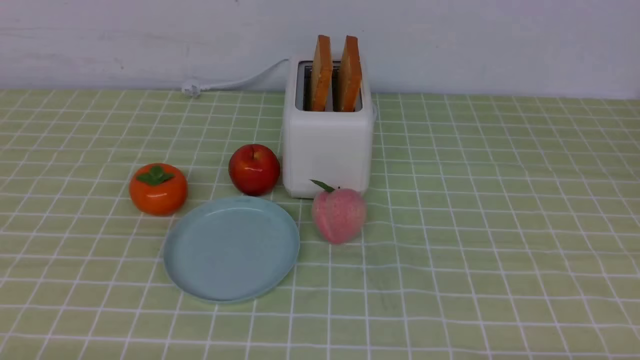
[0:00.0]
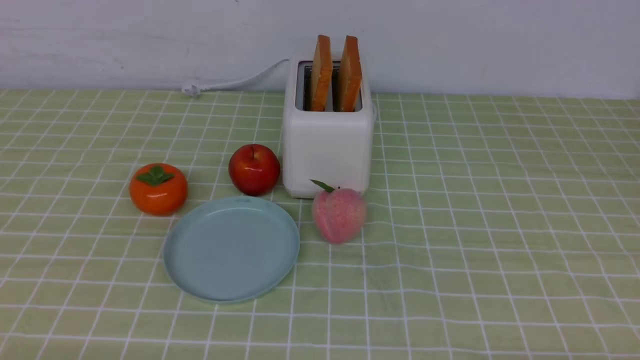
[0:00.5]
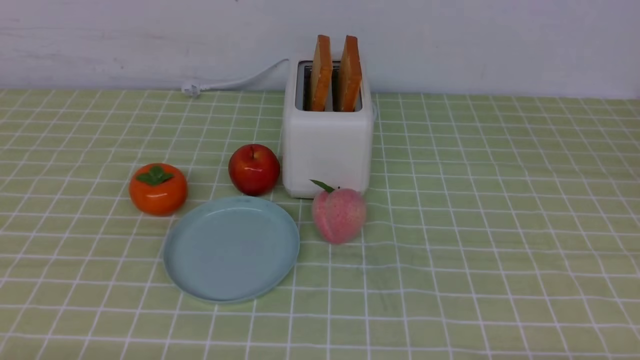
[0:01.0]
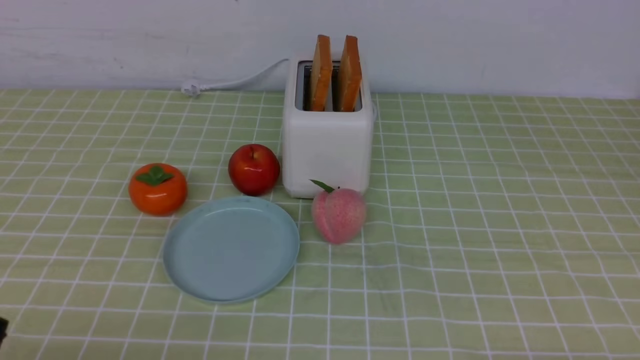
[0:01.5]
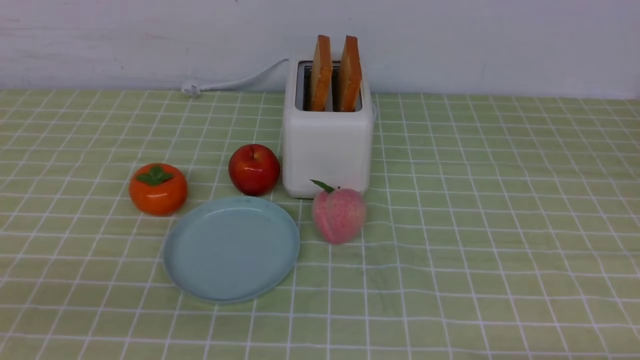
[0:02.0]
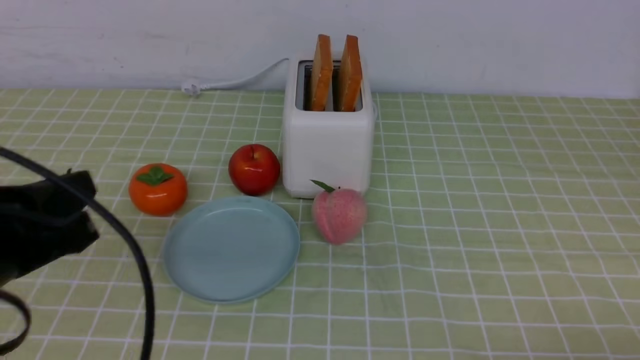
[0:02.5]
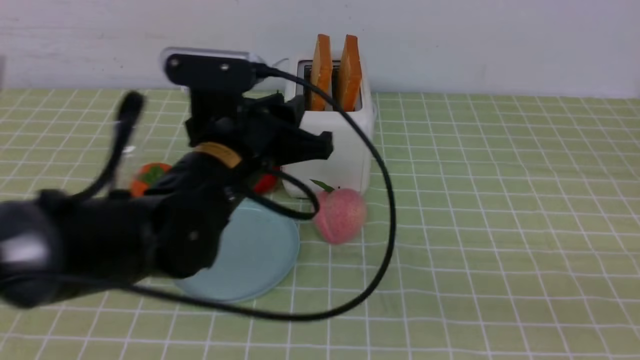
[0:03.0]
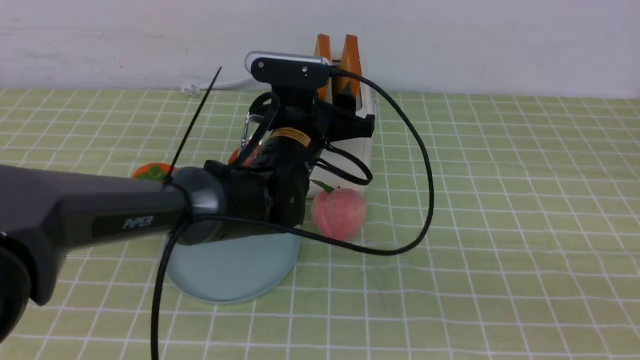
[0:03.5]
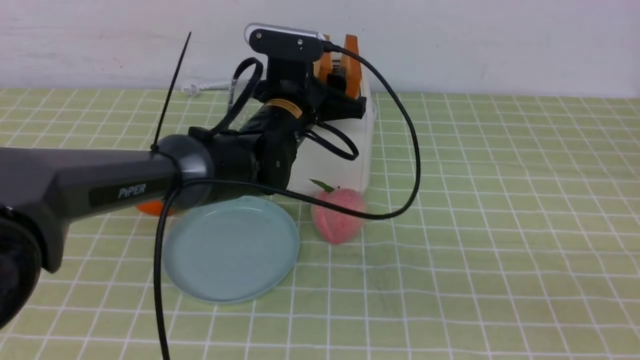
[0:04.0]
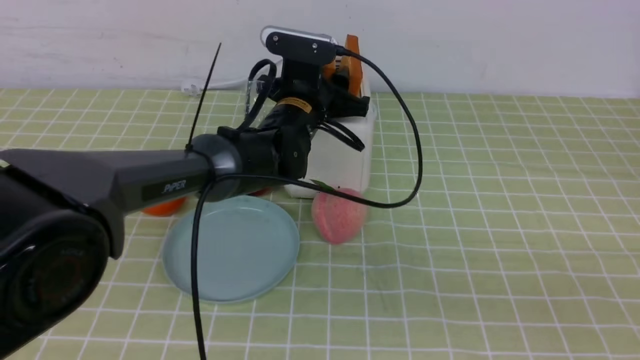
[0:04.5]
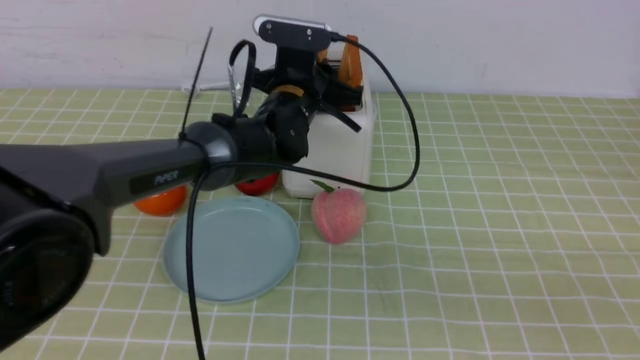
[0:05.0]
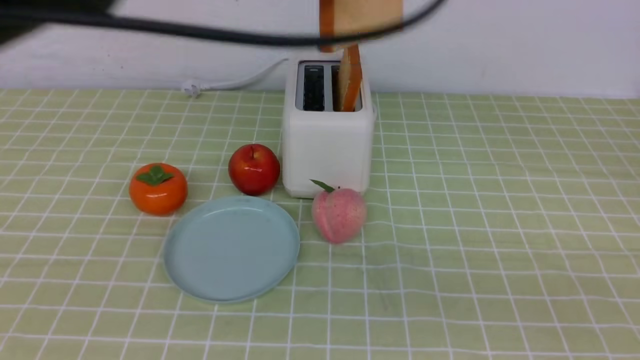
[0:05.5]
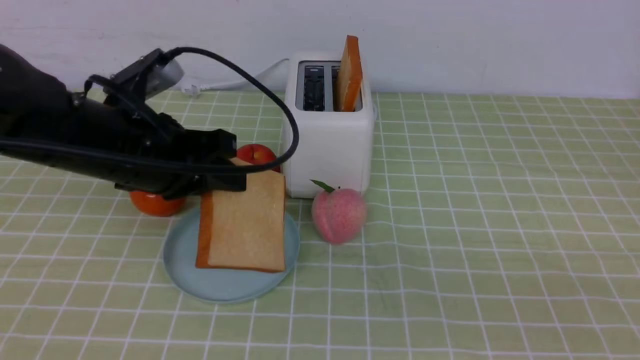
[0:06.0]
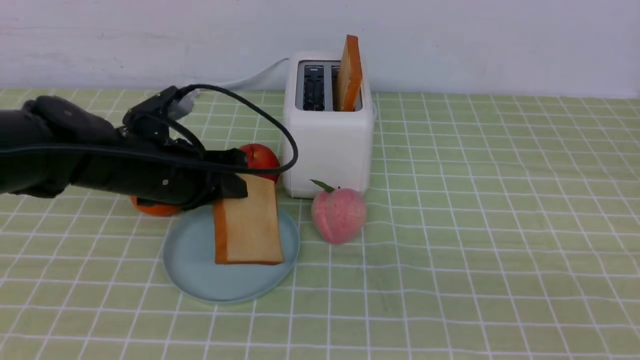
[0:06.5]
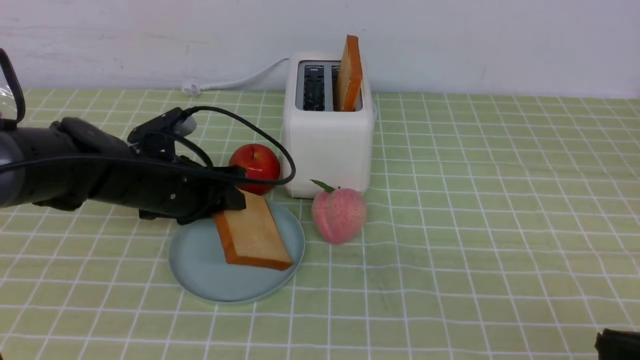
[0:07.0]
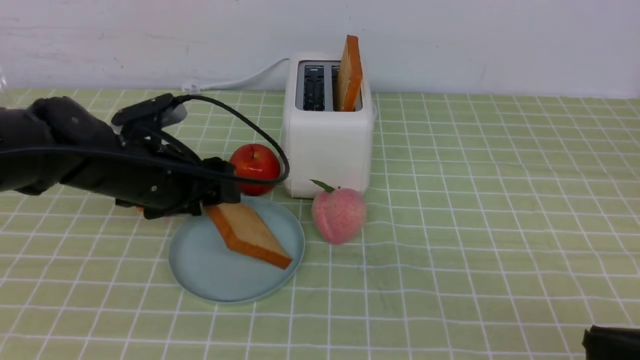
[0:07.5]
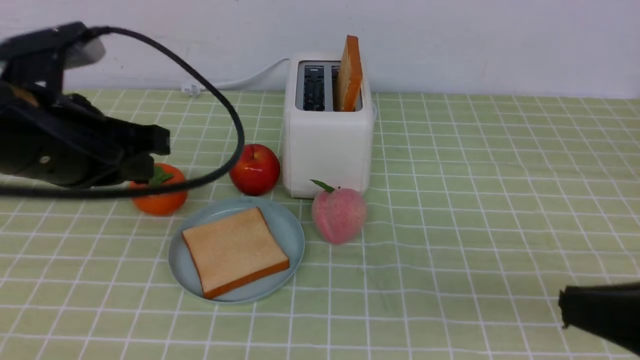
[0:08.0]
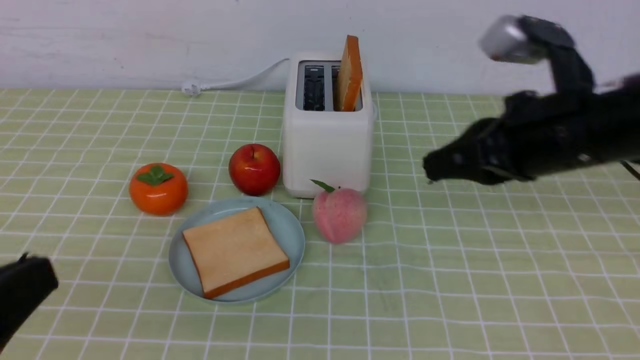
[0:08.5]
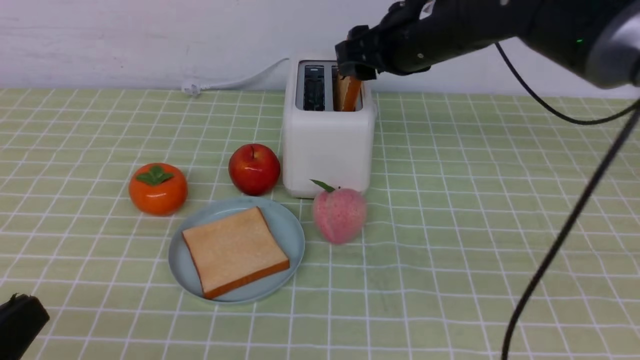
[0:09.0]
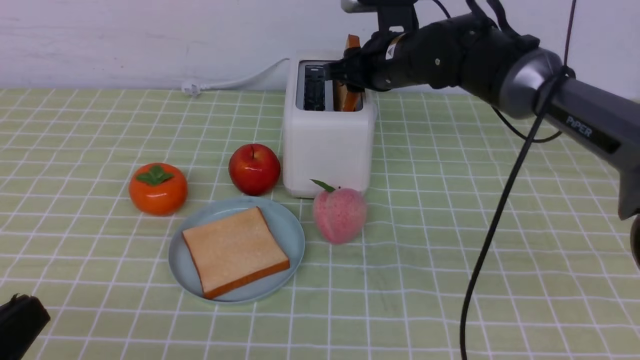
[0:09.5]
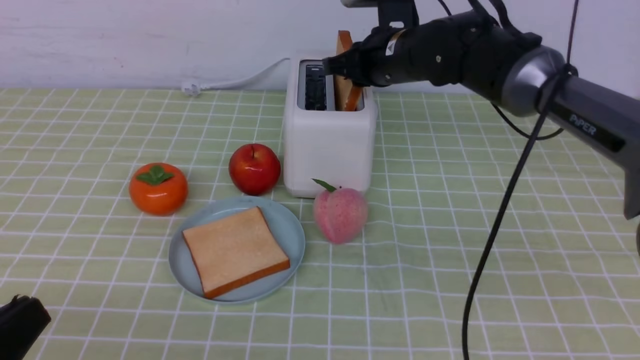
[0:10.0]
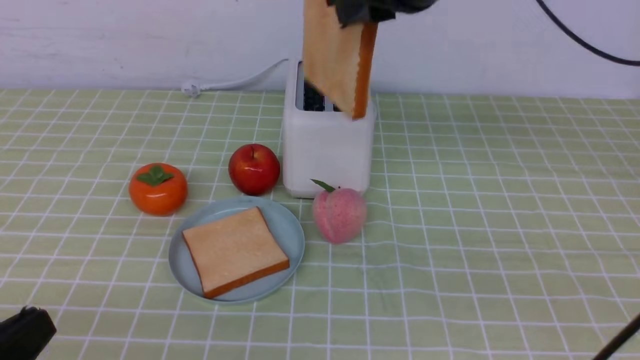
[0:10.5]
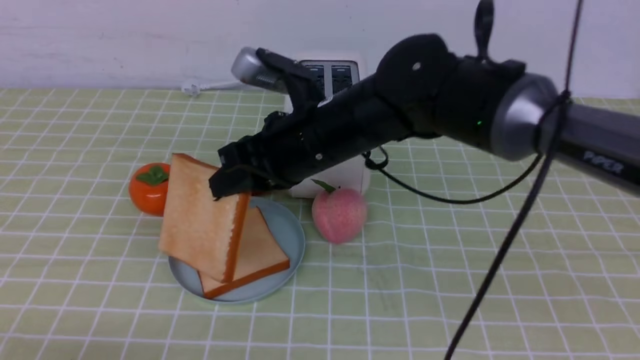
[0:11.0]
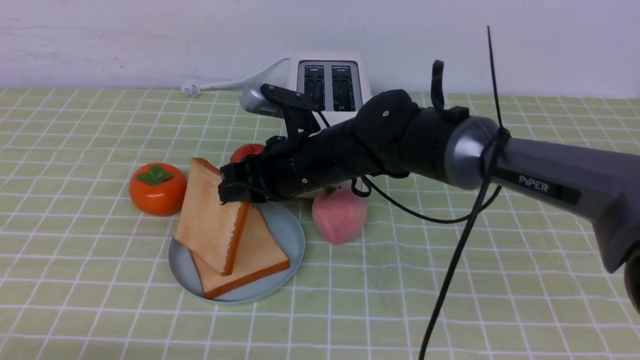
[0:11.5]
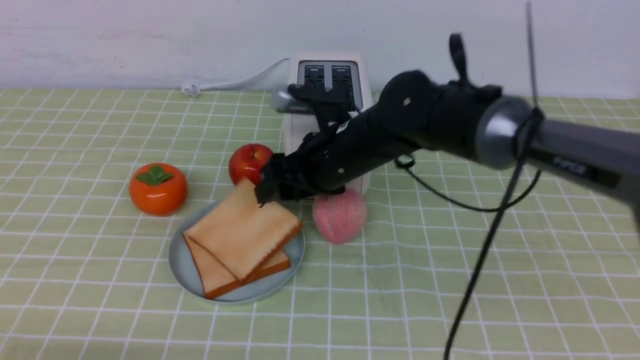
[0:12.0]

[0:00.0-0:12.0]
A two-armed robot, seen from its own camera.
Task of the whole recording: take toasted bread from bread machine on green coffee tablecloth place on plate.
Step, 0:00.0 to 0:05.0: use the left arm to take out a slice of bread.
Step, 0:05.5 to 0:07.5: use the left arm to put a slice of bread into the empty plate.
Step, 0:08.0 to 0:10.0: use the right arm to take out a slice of bread.
0:02.0 to 0:04.0: The right gripper shifts approximately 15 cm upward, and closes. The left gripper goes roughly 40 cm forward and to the right, and opens its fingers.
0:04.0 to 0:06.0: The left gripper goes some 20 cm to the left, backward and upward, and closes its fingers.
0:06.0 to 0:08.0: The left gripper travels downward and back again, approximately 15 cm each way, and opens, then closes once more.
0:08.0 to 0:10.0: The left gripper is displaced backward by about 20 cm, and closes up. The right gripper travels forward and to the left by some 40 cm, and opens, then closes once more.
0:10.0 to 0:12.0: The right gripper heads backward, to the left and downward, covering some 15 cm, and opens its fingers; the left gripper moves downward, about 10 cm.

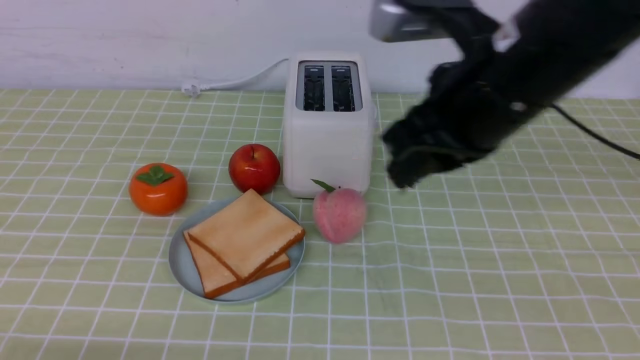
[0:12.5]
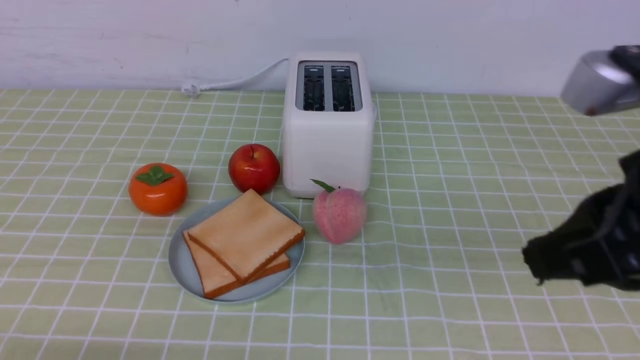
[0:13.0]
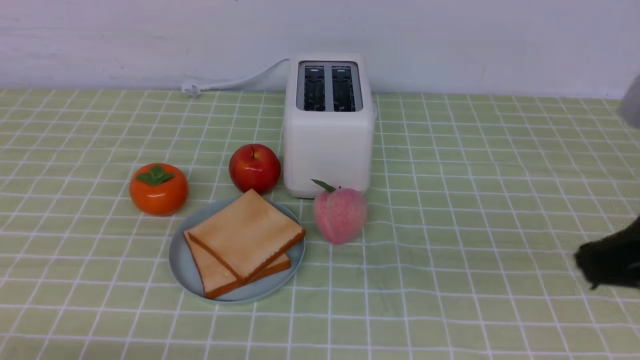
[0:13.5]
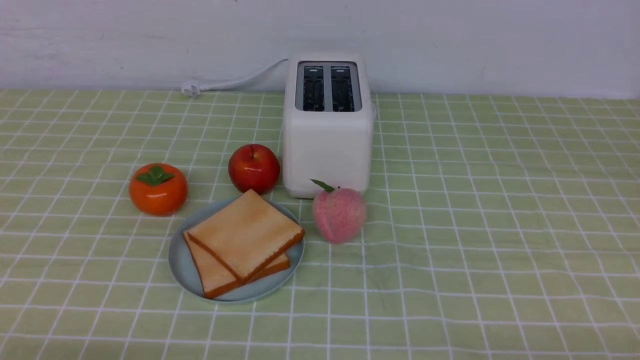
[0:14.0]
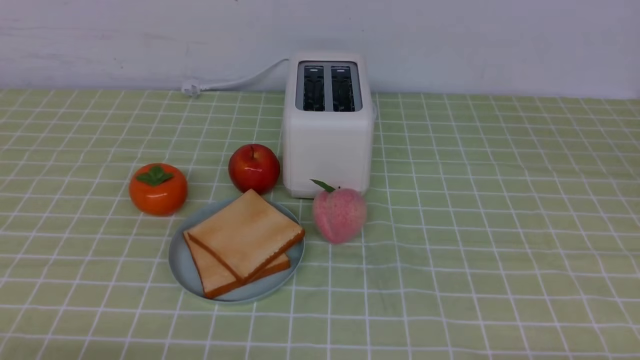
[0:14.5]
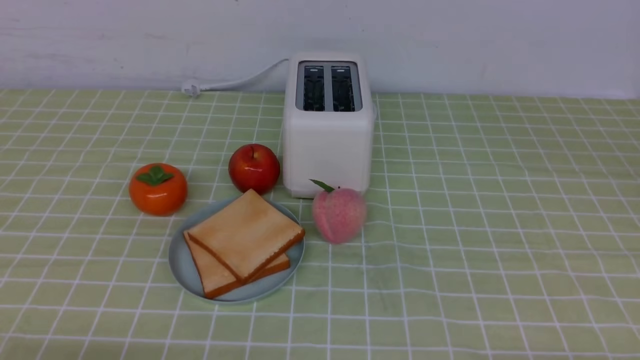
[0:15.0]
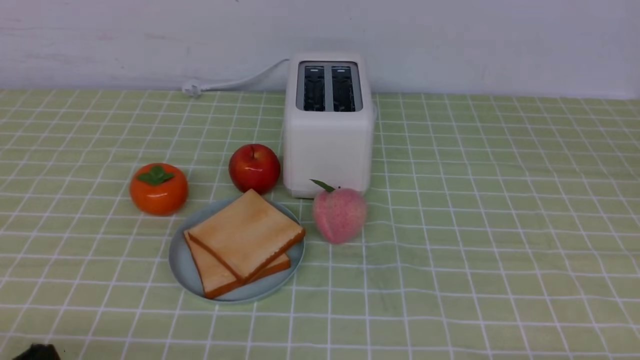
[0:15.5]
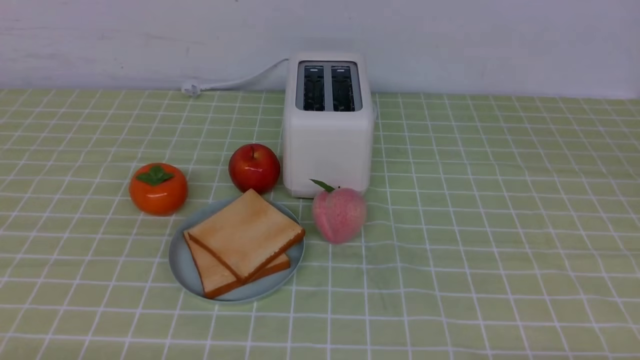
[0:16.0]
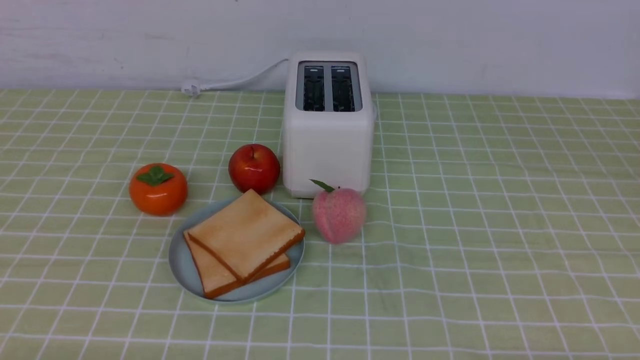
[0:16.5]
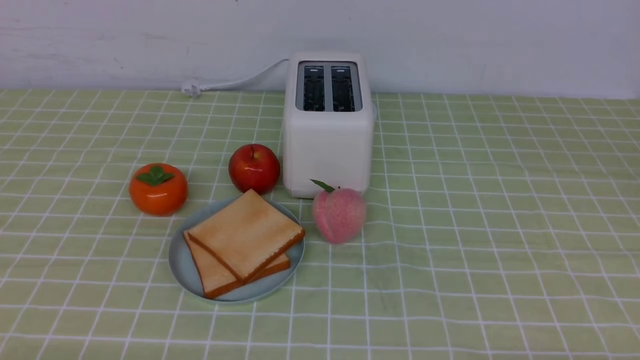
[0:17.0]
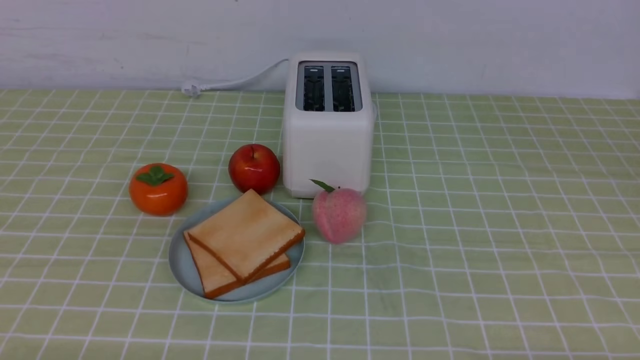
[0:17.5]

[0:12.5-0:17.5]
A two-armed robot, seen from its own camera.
Task of the whole recording: take toasted bread from bread machine on green coffee tablecloth place on plate.
0:12.5 to 0:15.0: The right gripper travels backward, downward and to the right by some 35 cm, and closes.
